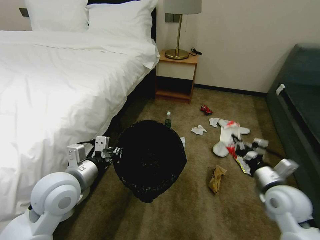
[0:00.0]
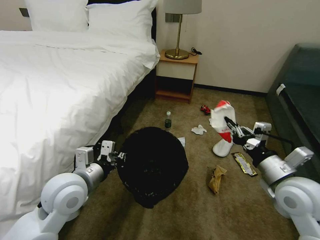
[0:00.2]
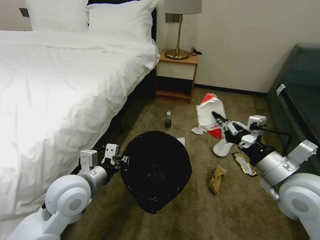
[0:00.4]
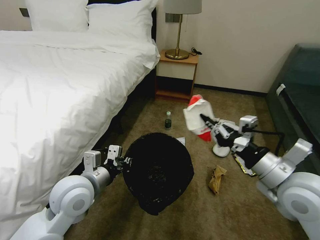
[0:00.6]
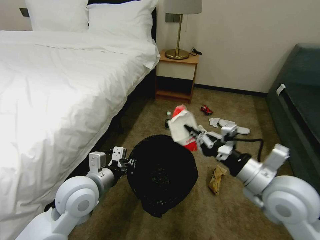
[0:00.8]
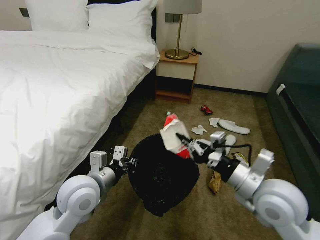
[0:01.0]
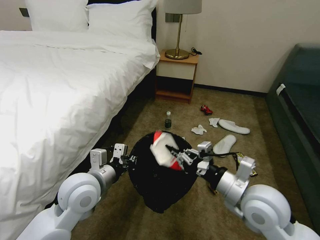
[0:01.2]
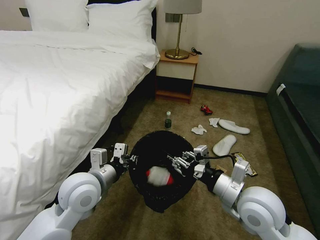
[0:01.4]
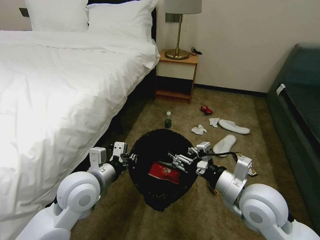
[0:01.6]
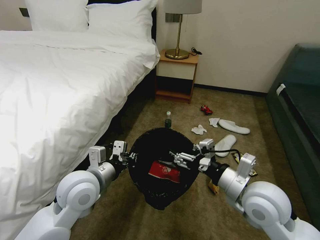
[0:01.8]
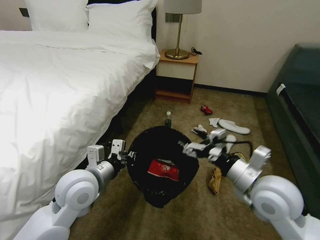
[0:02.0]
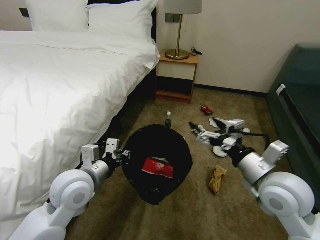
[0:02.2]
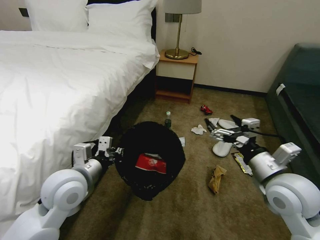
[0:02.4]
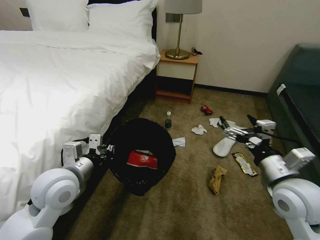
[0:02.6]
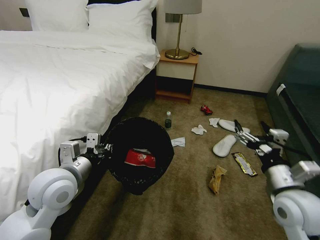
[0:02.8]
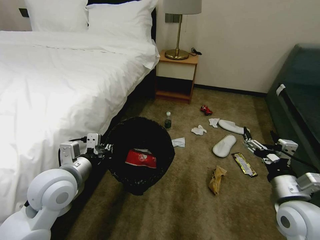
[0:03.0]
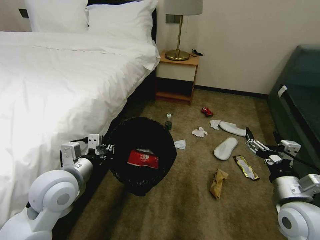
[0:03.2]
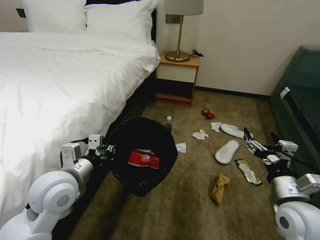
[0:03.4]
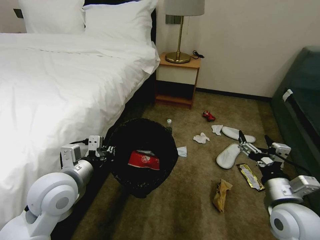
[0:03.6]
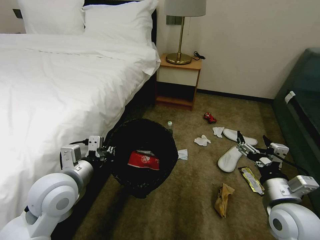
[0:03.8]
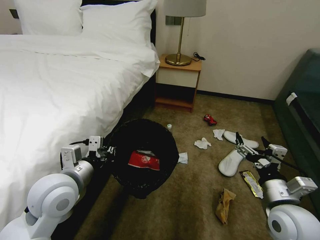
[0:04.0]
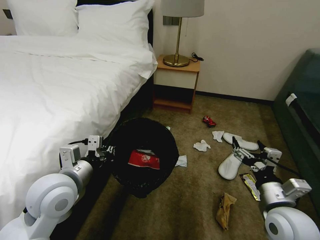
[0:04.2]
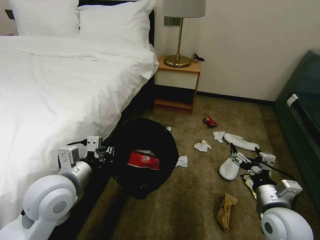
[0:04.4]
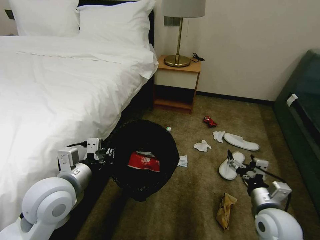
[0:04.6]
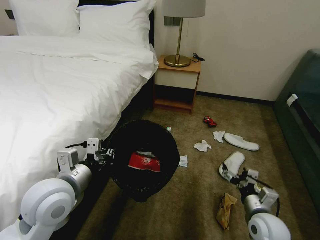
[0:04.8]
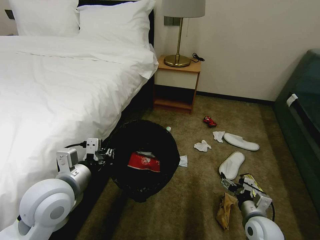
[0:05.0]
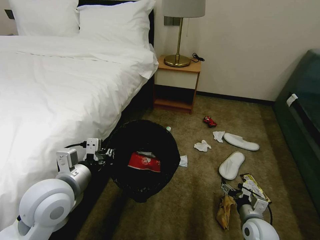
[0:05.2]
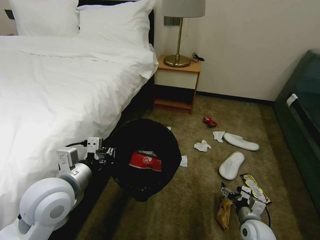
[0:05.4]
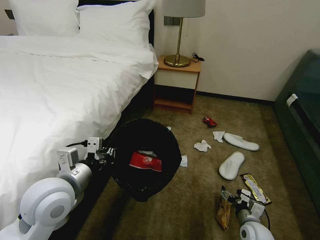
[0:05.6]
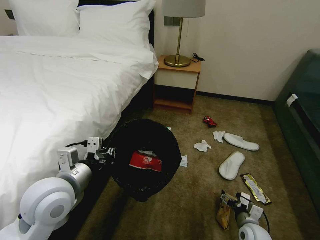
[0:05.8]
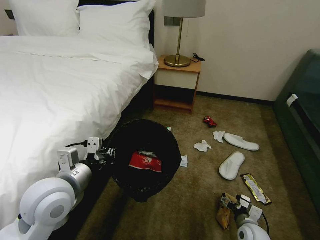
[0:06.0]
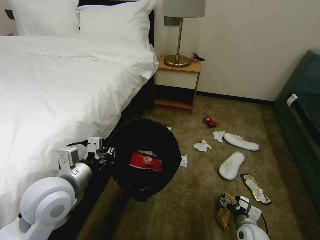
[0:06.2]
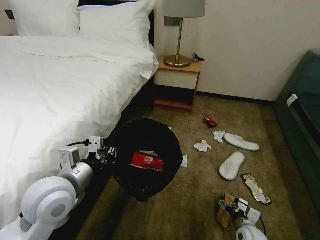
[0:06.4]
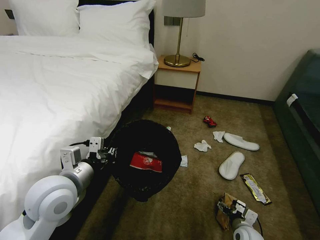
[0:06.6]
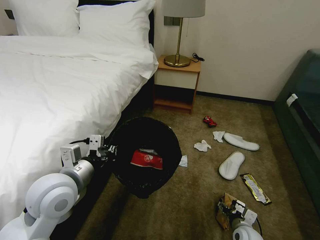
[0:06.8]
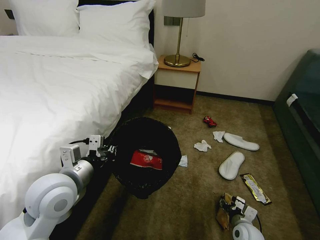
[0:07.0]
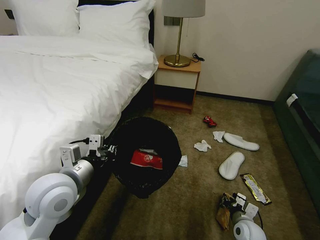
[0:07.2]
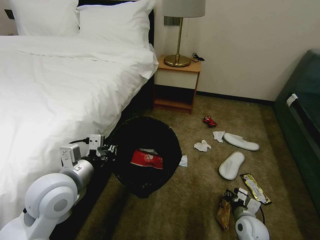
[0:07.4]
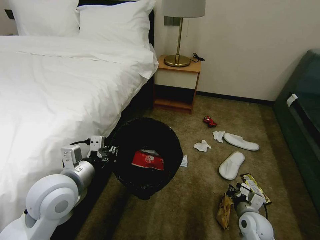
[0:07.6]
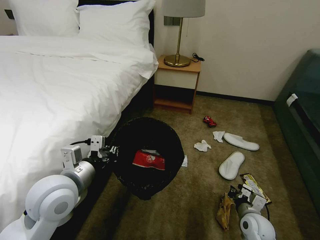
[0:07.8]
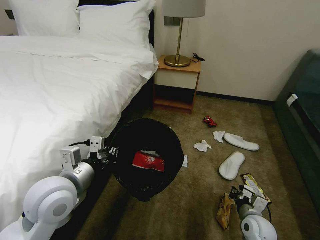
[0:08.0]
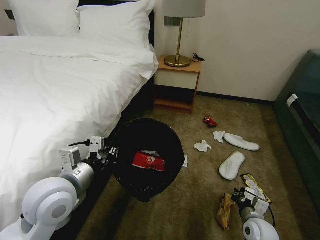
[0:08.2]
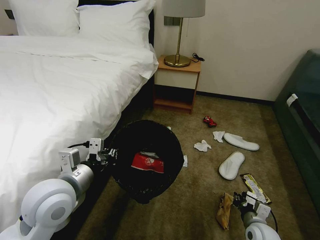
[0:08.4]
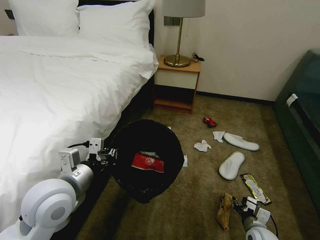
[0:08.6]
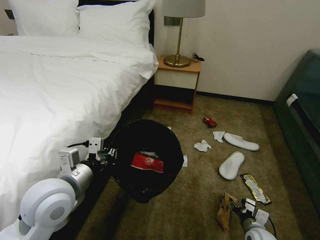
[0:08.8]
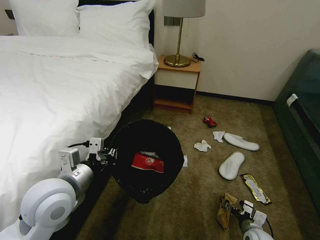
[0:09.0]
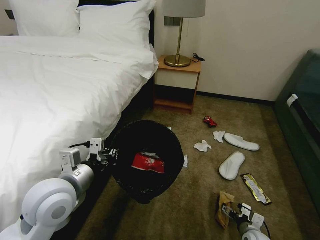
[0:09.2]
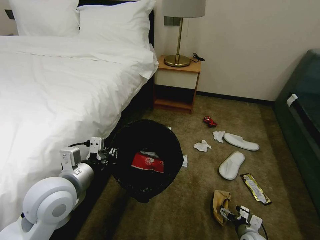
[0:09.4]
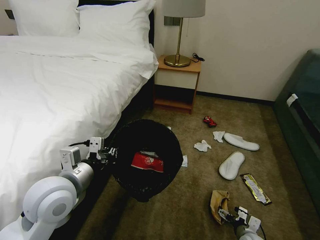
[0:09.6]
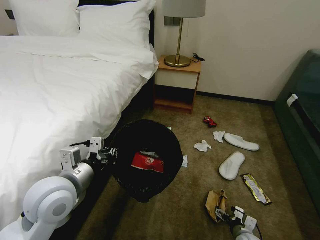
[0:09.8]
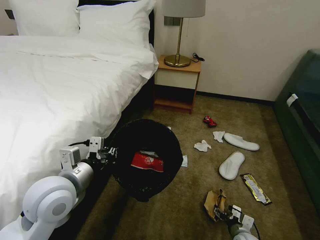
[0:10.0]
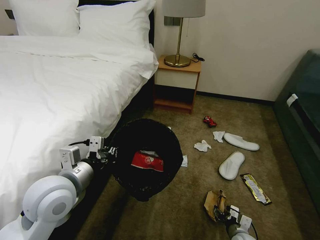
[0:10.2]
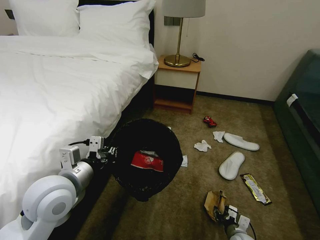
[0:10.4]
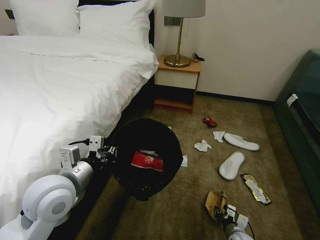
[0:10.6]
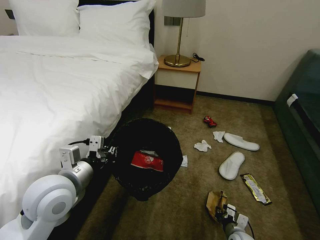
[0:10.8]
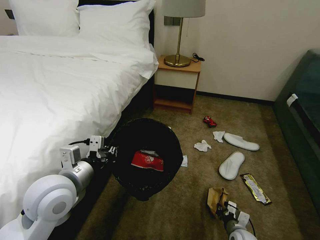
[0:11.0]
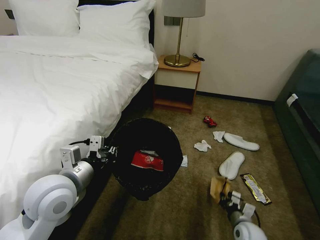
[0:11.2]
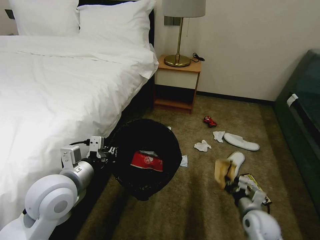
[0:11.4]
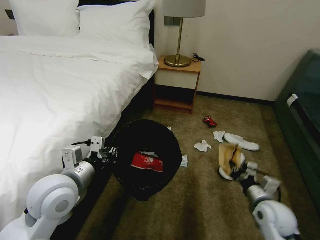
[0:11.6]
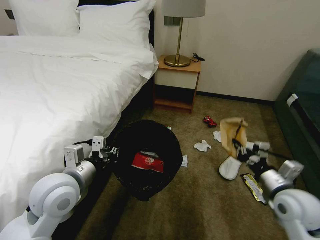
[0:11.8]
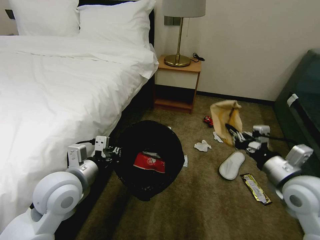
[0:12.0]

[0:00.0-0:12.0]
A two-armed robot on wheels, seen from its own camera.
Task of the whole recording: Pick up the trash bin, then pick up the garbage on the floor and place it into the trash bin.
0:00.0 to 0:01.6: The right gripper is displaced to the left and upward by roughly 15 cm, and opens up.
0:01.6 to 0:03.0: The right gripper is displaced to the right by approximately 10 cm, and opens its fingers, while the left gripper heads to the left, covering approximately 5 cm.
0:04.4 to 0:06.0: The right gripper shifts about 20 cm downward.
0:06.0 to 0:07.6: The right gripper closes.
0:07.6 to 0:09.0: The right gripper is displaced downward by roughly 5 cm, and opens.
0:09.0 to 0:10.4: The right gripper moves about 5 cm.
0:10.4 to 0:12.0: The right gripper heads upward, covering roughly 35 cm, and closes up.

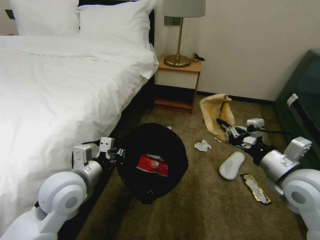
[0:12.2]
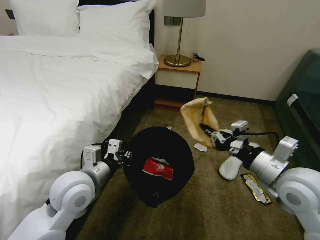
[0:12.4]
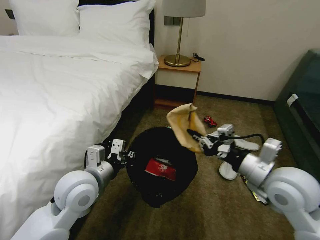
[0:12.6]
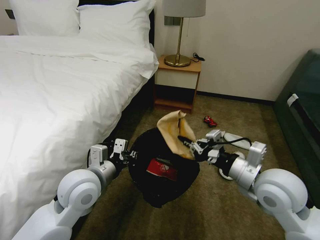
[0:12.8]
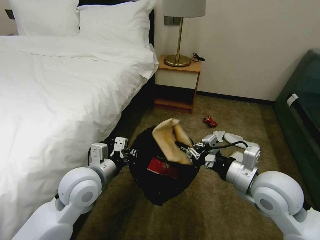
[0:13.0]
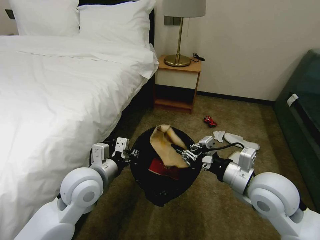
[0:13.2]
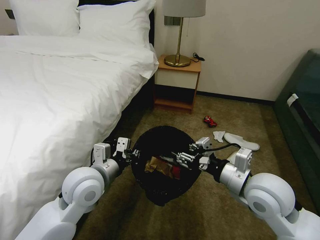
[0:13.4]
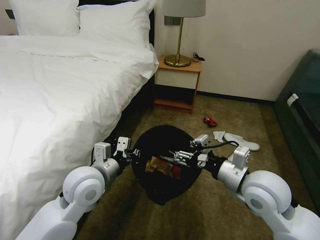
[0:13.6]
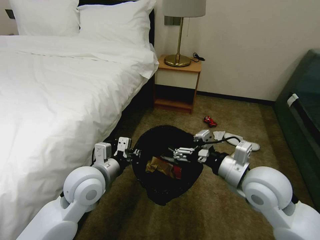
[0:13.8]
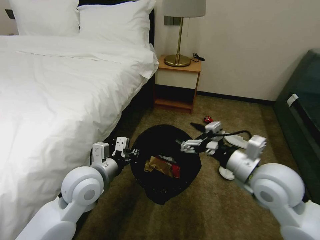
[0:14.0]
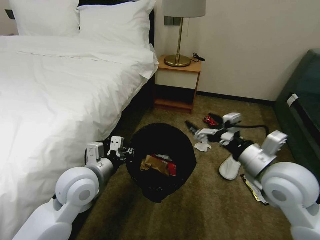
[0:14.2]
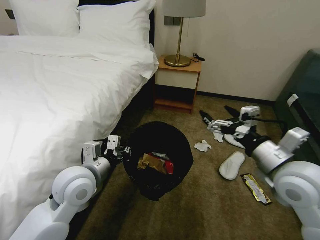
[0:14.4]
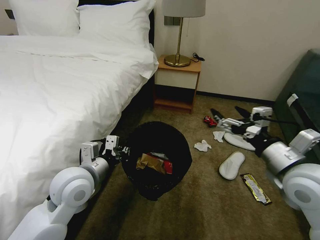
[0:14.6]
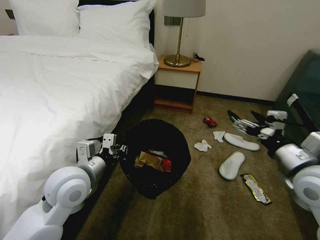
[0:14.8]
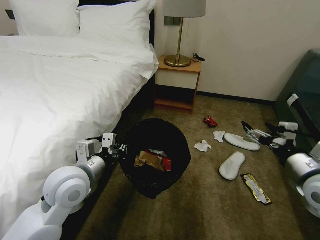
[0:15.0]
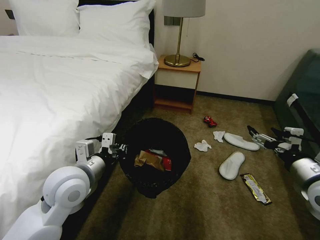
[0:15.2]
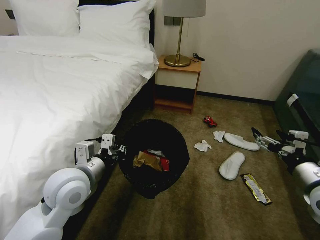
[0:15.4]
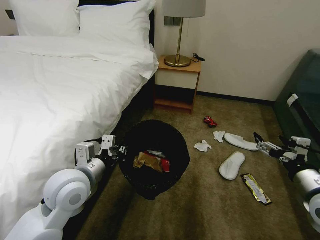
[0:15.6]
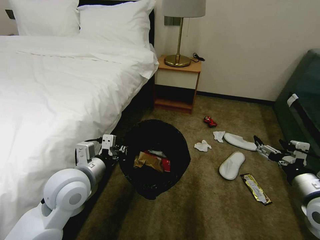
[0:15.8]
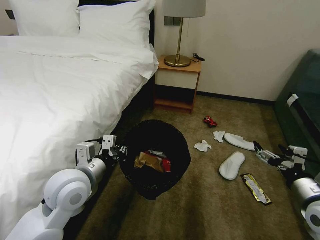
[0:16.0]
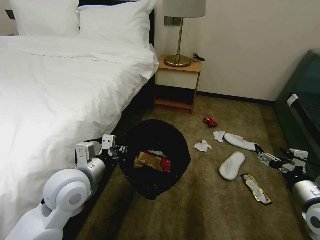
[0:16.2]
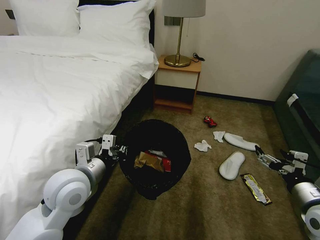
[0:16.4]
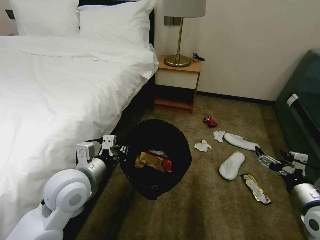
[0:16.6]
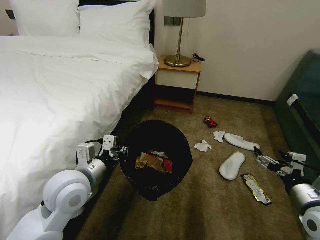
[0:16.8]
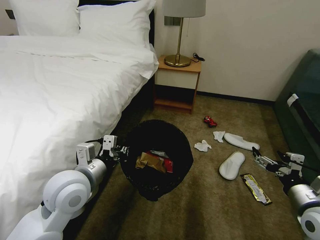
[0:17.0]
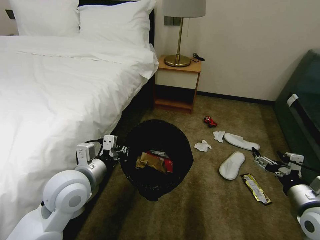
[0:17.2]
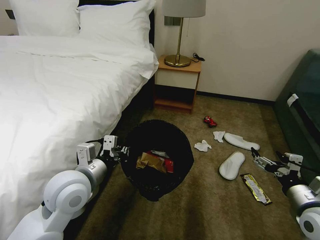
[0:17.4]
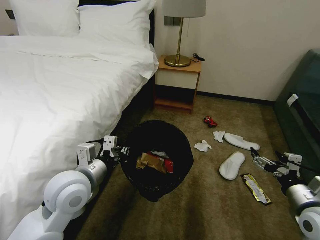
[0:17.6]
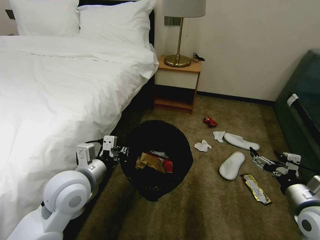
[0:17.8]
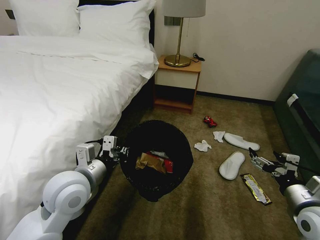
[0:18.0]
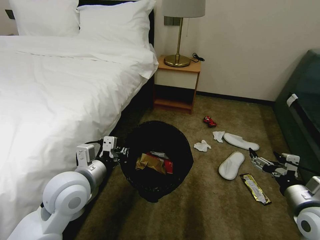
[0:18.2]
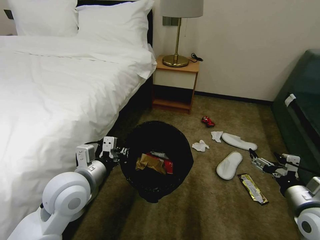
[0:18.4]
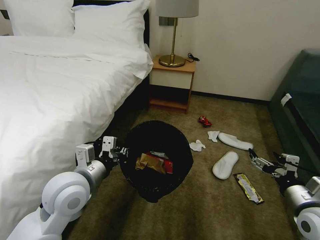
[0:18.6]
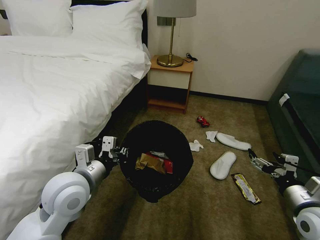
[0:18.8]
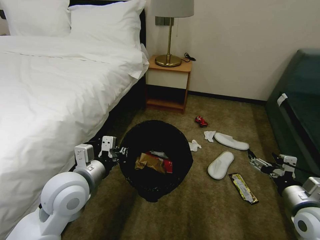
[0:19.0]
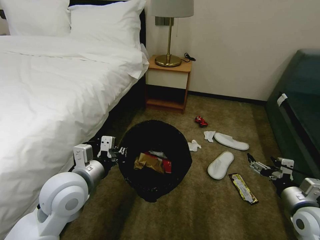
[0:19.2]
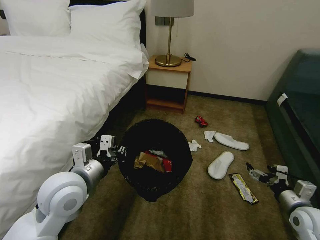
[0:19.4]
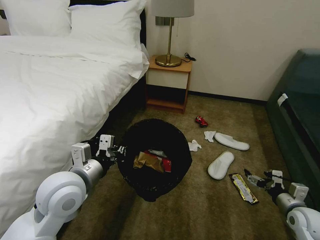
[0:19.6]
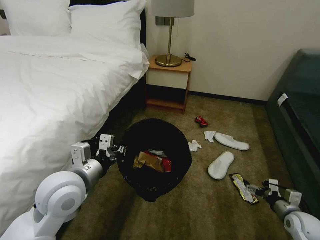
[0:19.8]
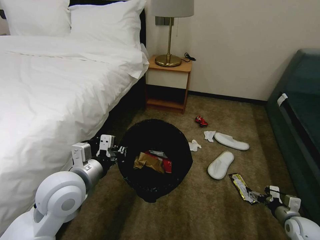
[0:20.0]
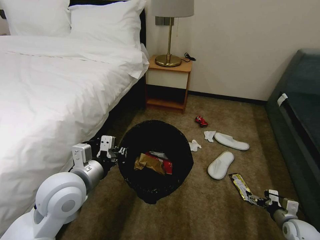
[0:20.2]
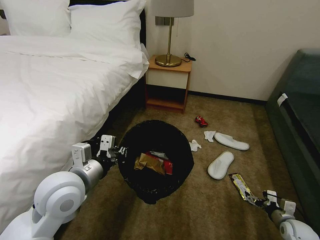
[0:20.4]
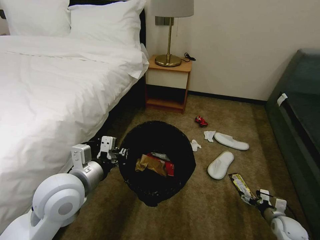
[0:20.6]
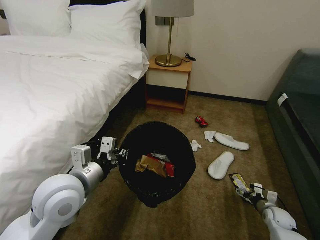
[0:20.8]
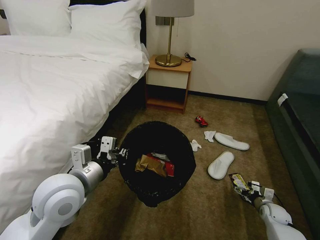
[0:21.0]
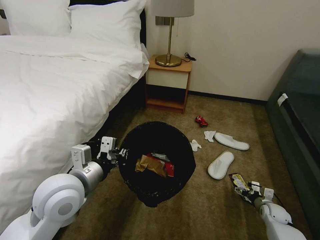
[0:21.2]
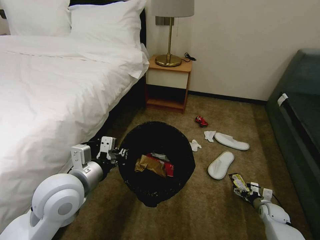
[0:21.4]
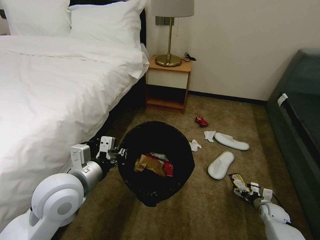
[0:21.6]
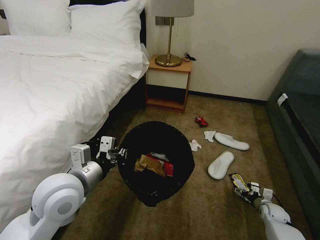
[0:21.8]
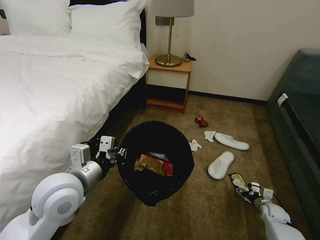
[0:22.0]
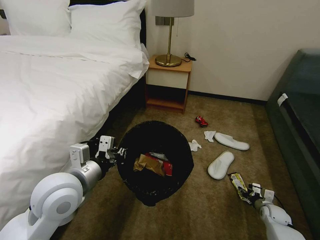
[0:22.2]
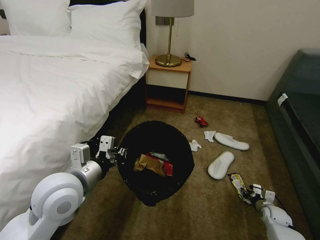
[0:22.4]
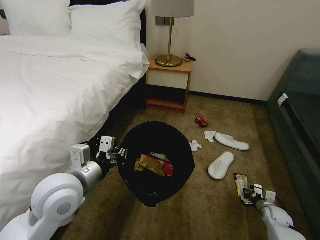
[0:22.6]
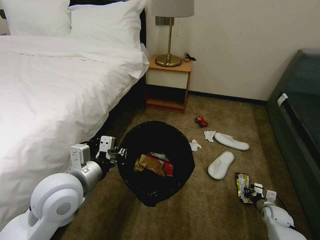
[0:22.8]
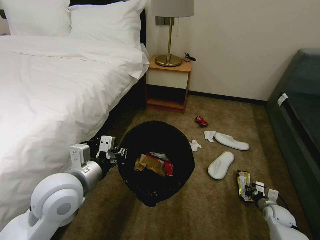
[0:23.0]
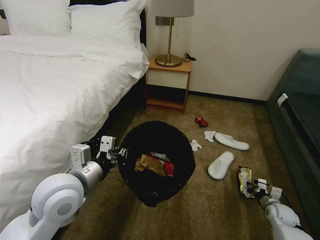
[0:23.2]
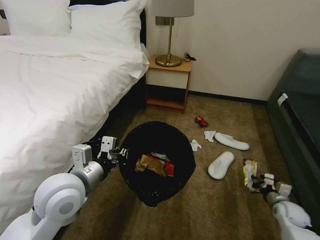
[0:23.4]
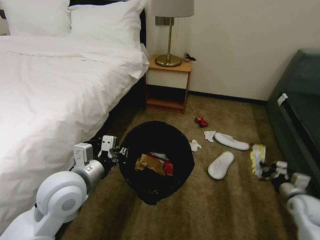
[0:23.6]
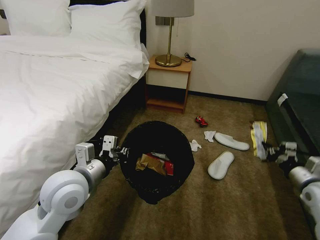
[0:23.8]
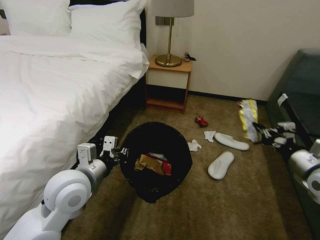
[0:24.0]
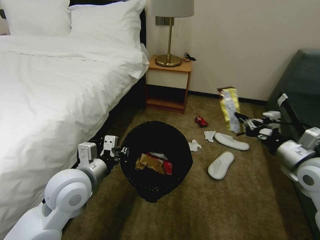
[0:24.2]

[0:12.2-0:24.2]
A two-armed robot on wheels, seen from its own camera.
Task of the whole recording: Pick up the trash bin, then pick up the garbage on the floor and place it into the trash bin.
0:12.2 to 0:13.8: The right gripper travels to the left by approximately 10 cm, and opens its fingers.
0:13.8 to 0:15.2: The left gripper closes up. The right gripper goes some 15 cm to the right.
0:15.2 to 0:16.6: The right gripper moves downward, about 5 cm.
0:16.6 to 0:18.2: There are only small adjustments of the grippers.
0:18.2 to 0:19.8: The right gripper goes approximately 15 cm downward and to the right.
0:19.8 to 0:21.2: The right gripper moves downward and forward, roughly 15 cm.
0:21.2 to 0:22.6: The right gripper closes.
0:22.6 to 0:24.2: The right gripper heads upward, covering approximately 35 cm.
